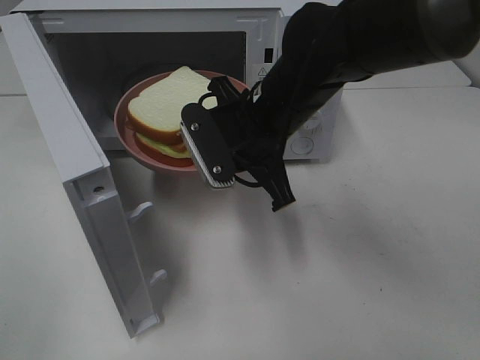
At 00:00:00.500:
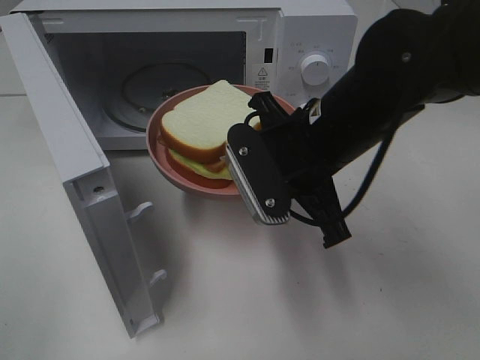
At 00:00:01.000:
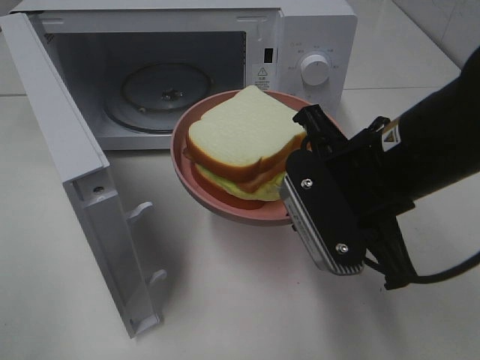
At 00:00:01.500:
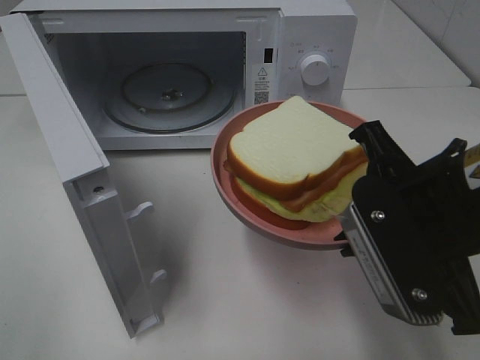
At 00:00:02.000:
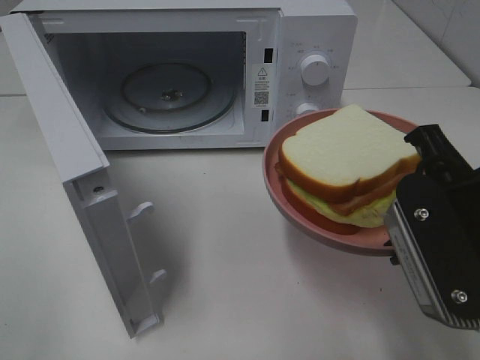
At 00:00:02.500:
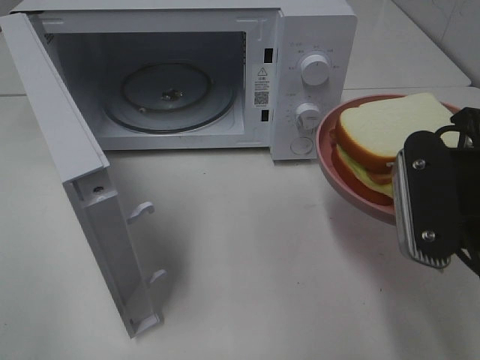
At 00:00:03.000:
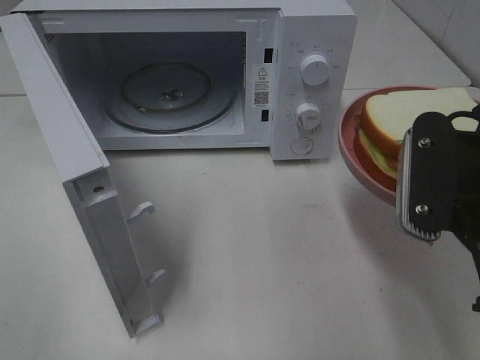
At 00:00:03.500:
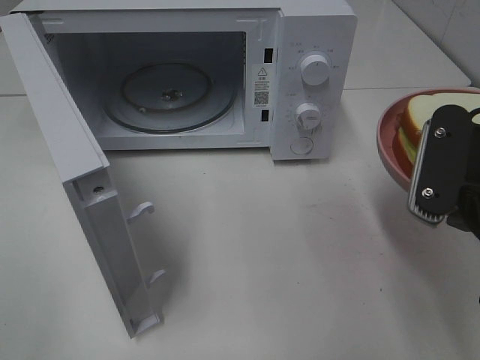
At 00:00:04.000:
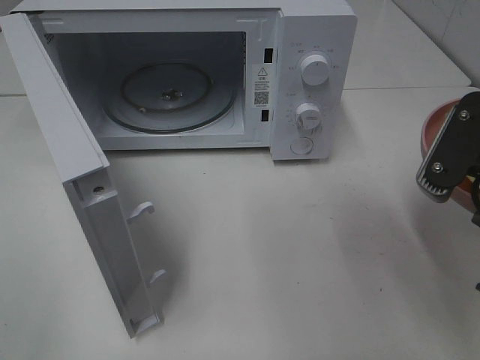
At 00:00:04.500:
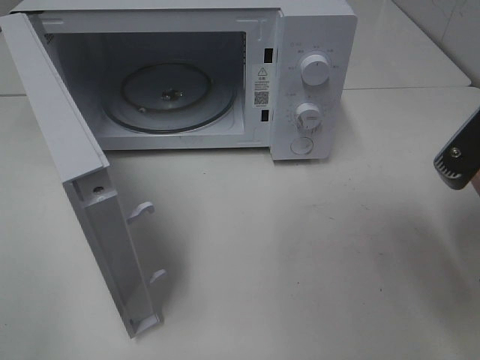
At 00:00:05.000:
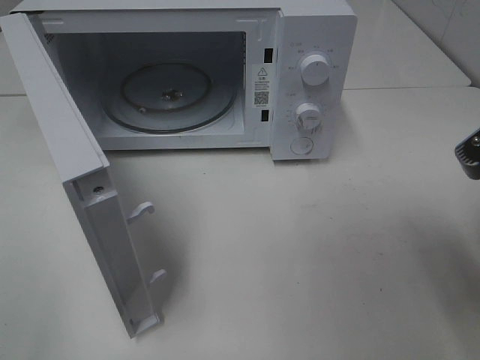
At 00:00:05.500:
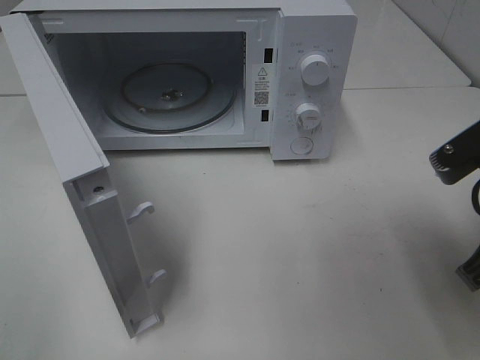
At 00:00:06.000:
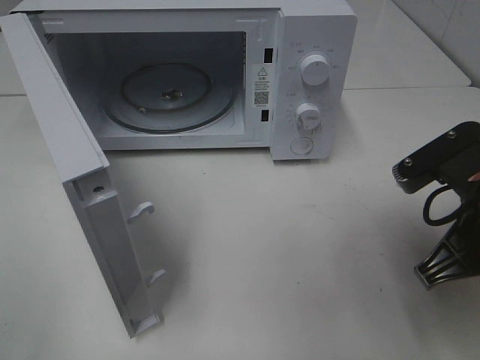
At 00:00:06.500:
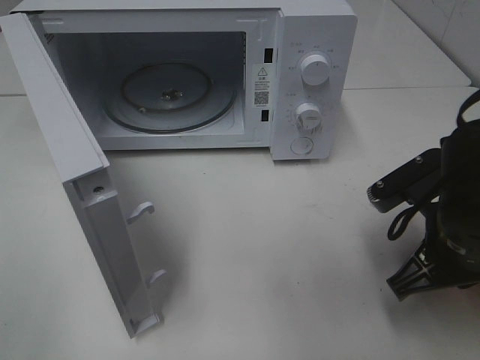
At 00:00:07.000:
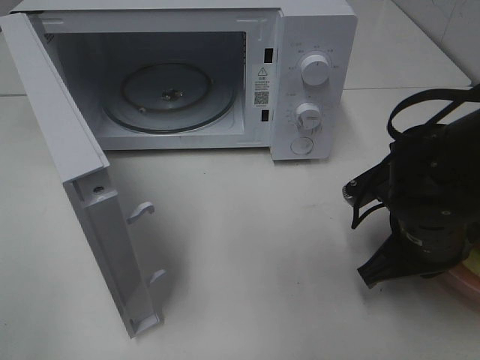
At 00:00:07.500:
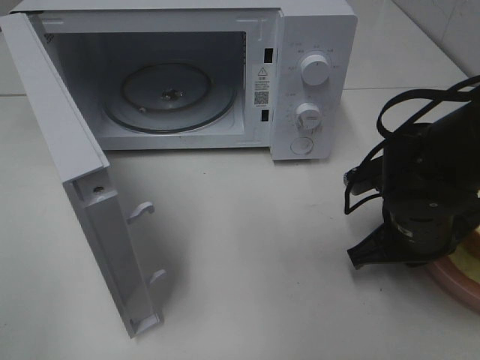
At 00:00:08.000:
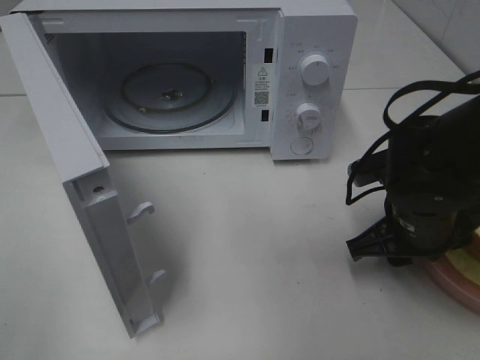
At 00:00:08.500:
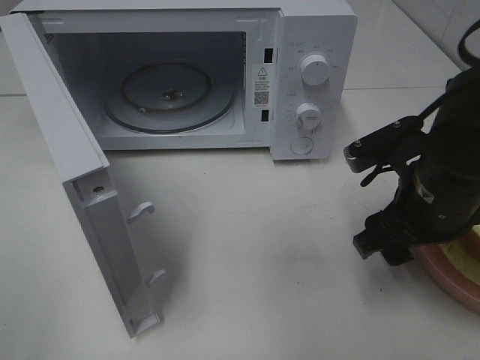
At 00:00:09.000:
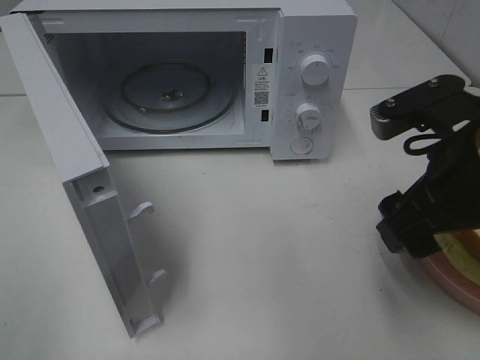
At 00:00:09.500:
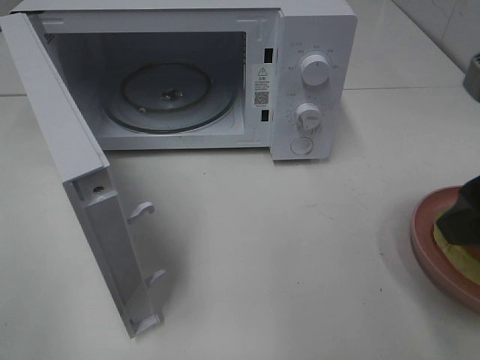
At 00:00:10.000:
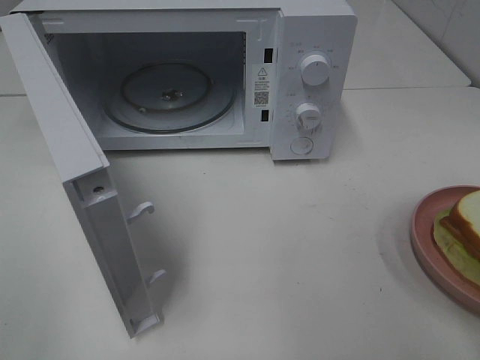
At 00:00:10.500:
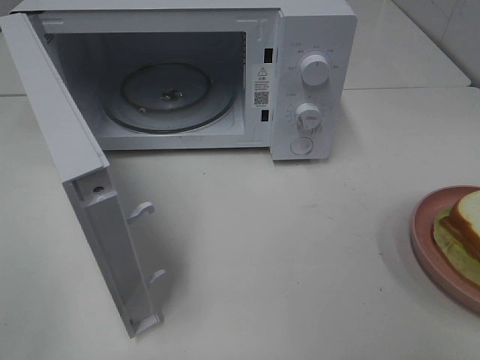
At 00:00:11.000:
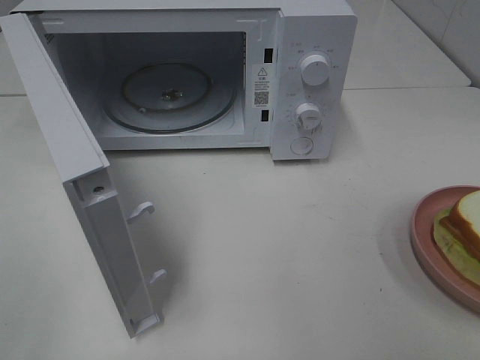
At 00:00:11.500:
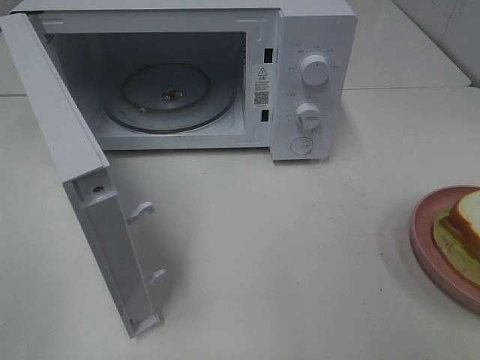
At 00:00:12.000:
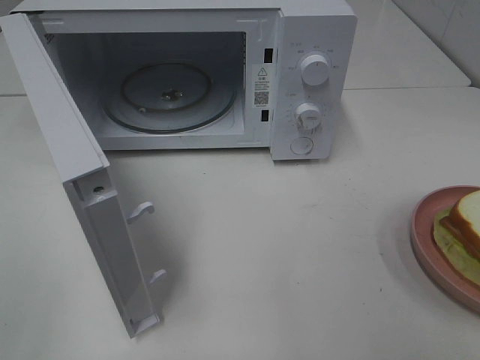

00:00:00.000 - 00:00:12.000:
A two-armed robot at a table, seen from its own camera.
Task of the whole recording: Heat Sandwich.
Step, 00:00:00.000 - 00:00:09.000: Right hand: place the plate on the table.
00:00:00.000 - 00:00:02.000: The right gripper shifts about 20 cm backward and to the right.
00:00:04.000 - 00:00:06.000: The right gripper goes about 5 cm downward.
00:00:06.000 - 00:00:08.000: The right gripper is displaced downward and forward by about 10 cm, and opens its fingers.
00:00:08.000 - 00:00:10.000: The right gripper is displaced upward and backward by roughly 25 cm, and opens up.

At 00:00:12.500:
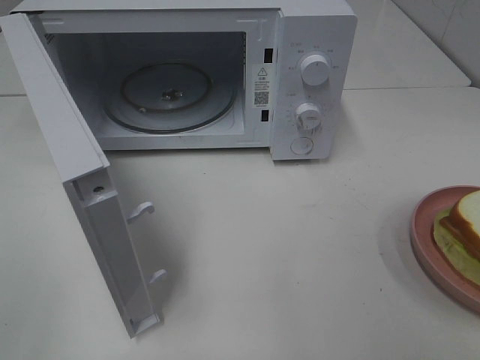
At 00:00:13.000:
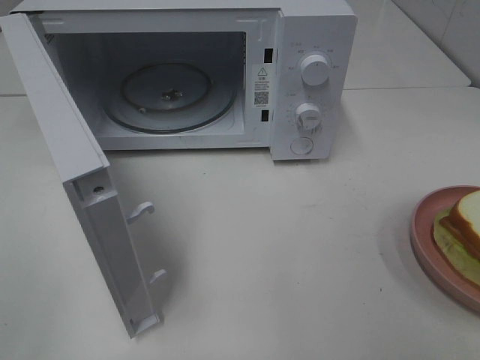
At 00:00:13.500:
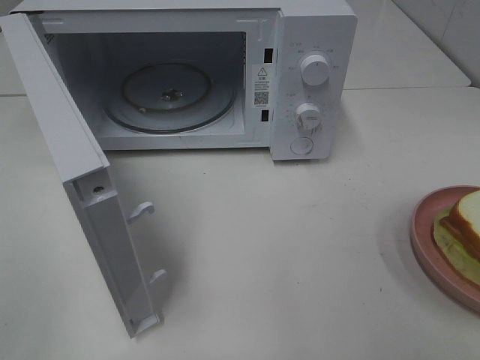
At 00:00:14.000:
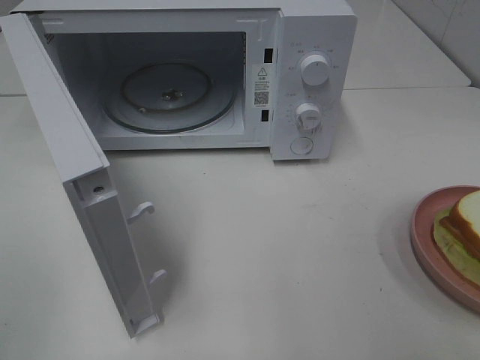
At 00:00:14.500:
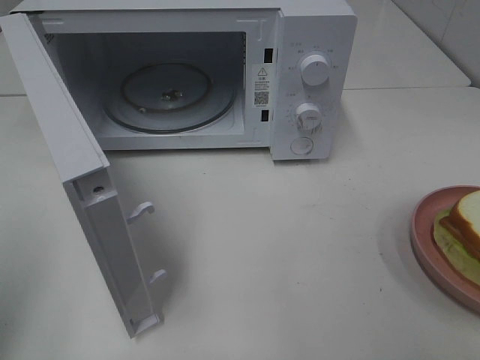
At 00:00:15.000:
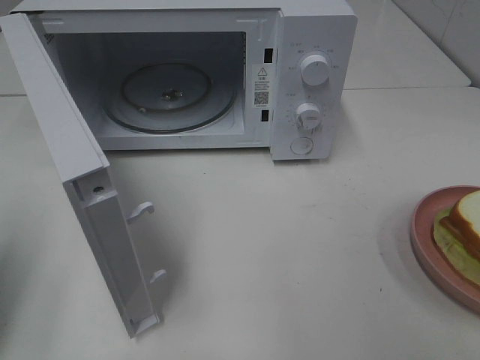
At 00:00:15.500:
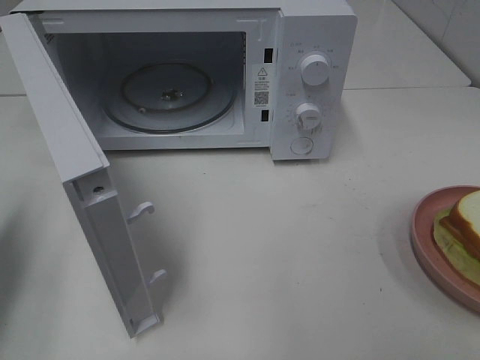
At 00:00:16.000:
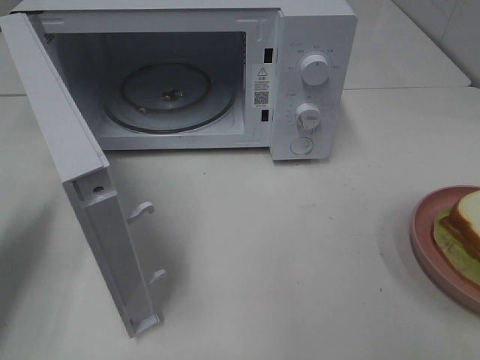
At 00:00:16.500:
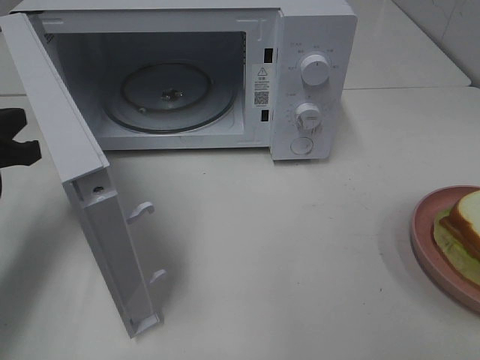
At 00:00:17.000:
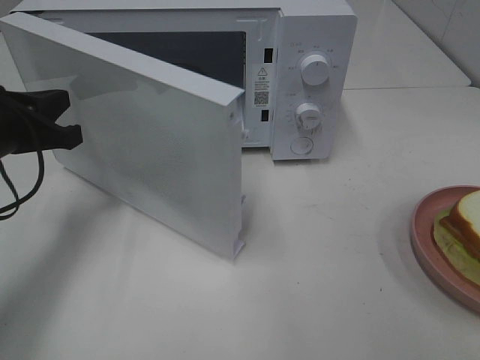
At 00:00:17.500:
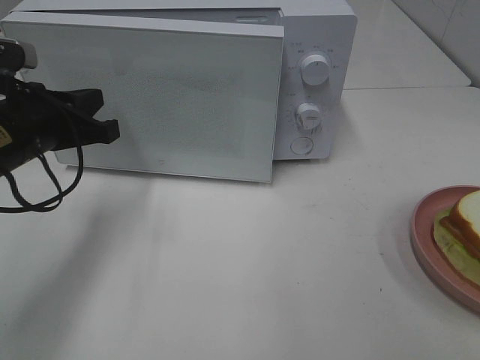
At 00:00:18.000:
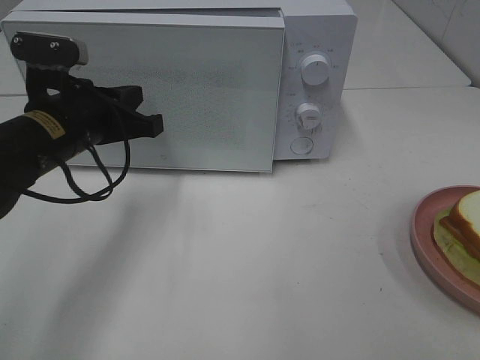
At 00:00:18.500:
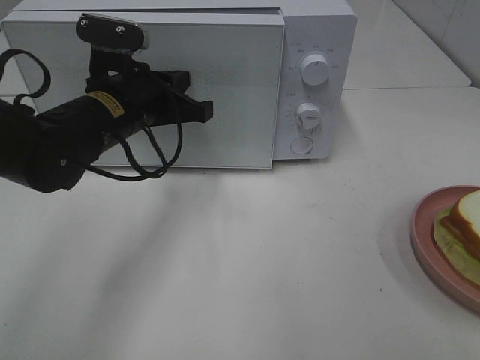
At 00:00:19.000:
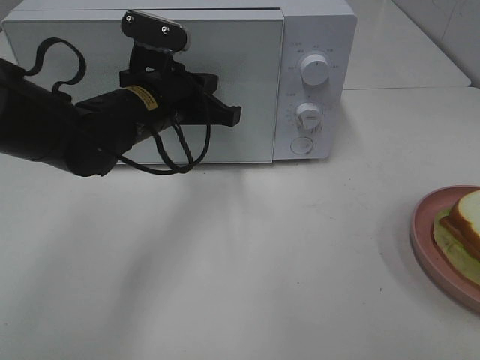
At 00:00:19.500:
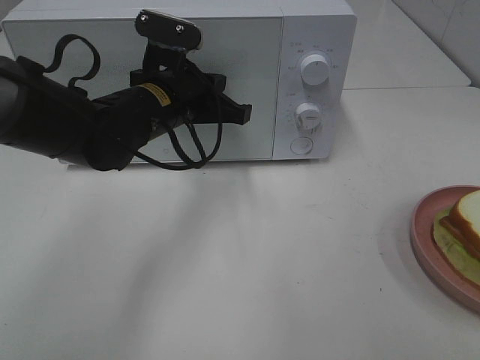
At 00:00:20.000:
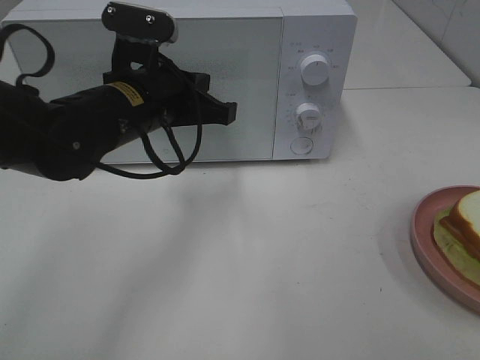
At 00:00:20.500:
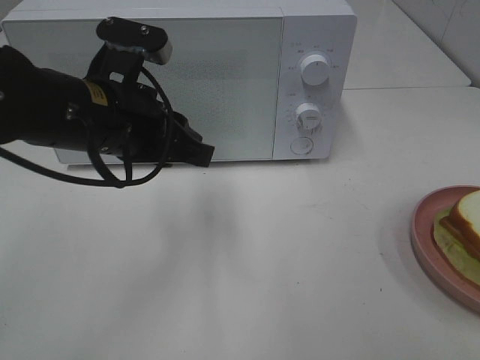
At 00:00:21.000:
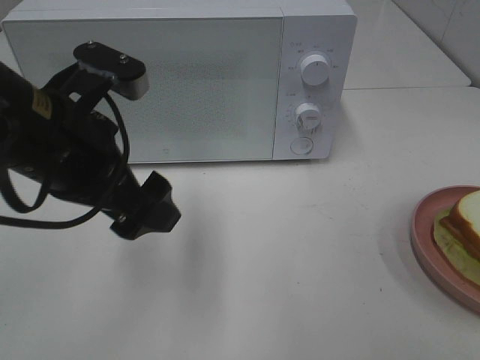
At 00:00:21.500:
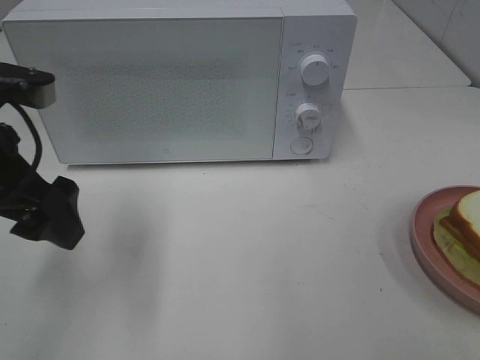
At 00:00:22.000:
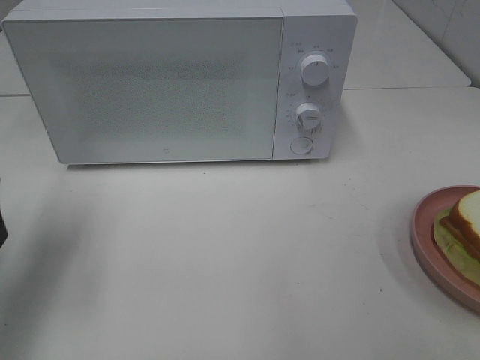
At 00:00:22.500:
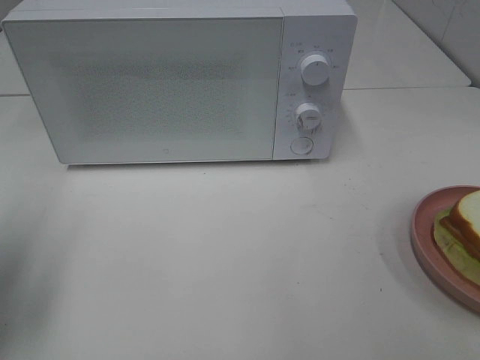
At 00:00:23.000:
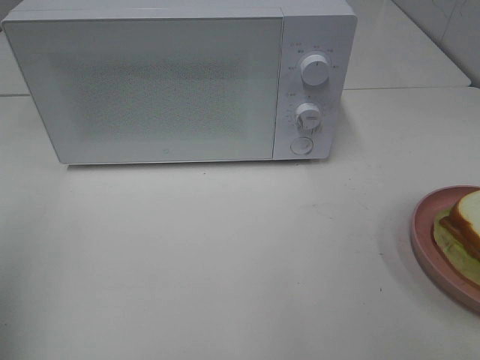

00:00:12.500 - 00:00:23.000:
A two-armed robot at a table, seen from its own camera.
Task of the whole recording: Heat Sandwich.
Step, 00:00:12.500 - 00:00:20.000: Left hand: close the microwave door.
00:00:14.500 - 00:00:16.500: The left gripper goes approximately 20 cm forward and downward.
00:00:16.500 - 00:00:19.000: The left gripper moves to the right and forward, approximately 20 cm.
00:00:19.000 - 00:00:21.000: The left gripper travels backward and upward by about 15 cm, and opens.
00:00:21.000 - 00:00:23.000: The left gripper is displaced to the left and backward by roughly 20 cm.

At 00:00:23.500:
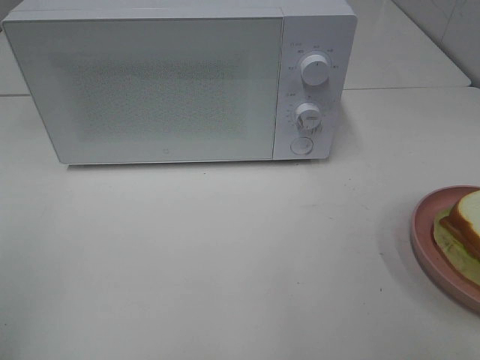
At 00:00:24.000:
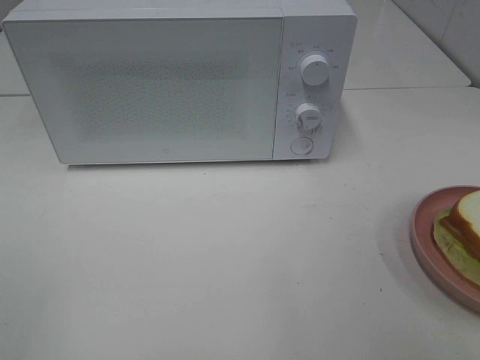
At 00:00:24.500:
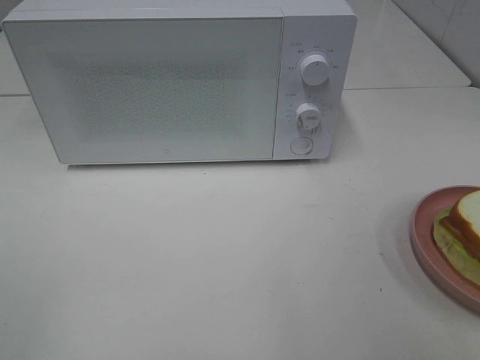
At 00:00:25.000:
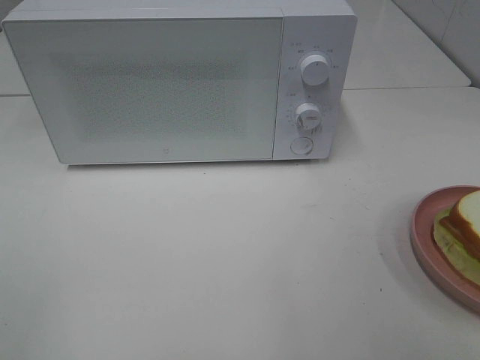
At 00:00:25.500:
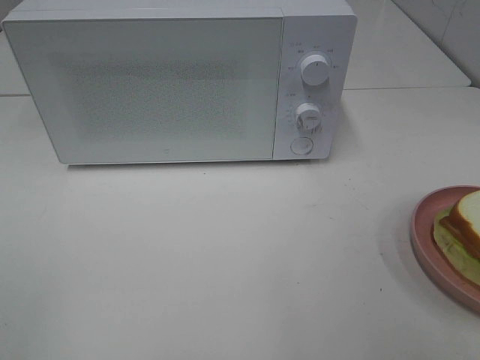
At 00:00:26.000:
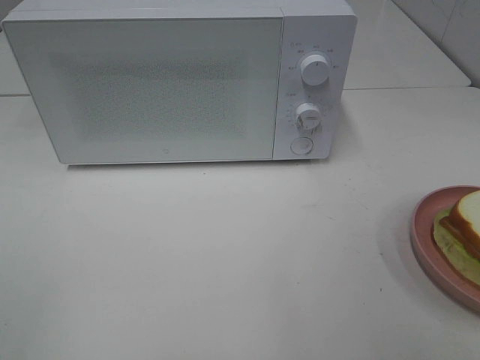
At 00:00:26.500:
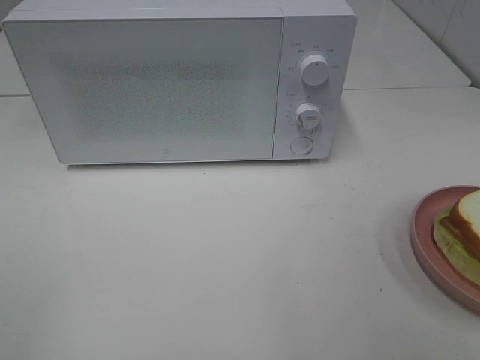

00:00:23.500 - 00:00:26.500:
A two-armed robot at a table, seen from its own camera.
Task of the whole recording: Heat Sandwich.
00:00:25.000 - 00:00:26.500: The two grippers keep their place.
